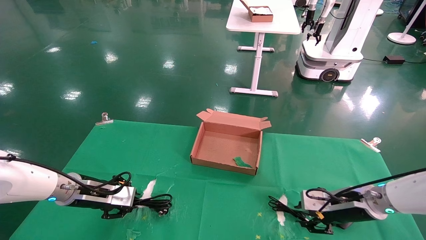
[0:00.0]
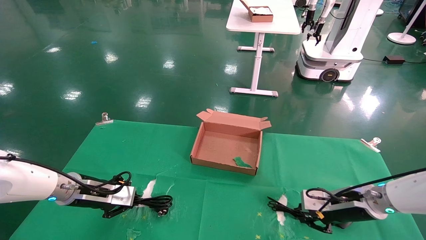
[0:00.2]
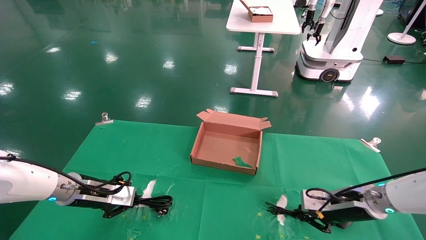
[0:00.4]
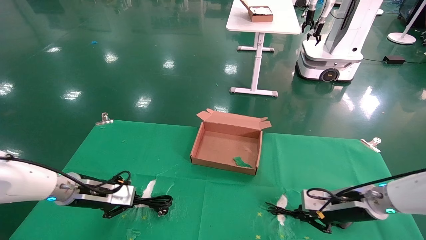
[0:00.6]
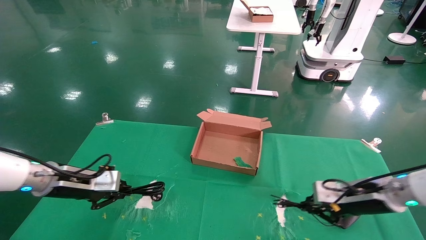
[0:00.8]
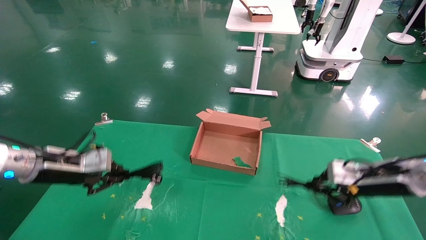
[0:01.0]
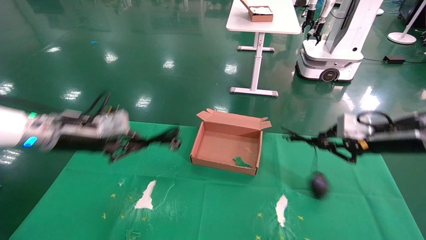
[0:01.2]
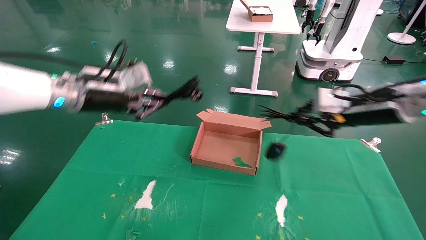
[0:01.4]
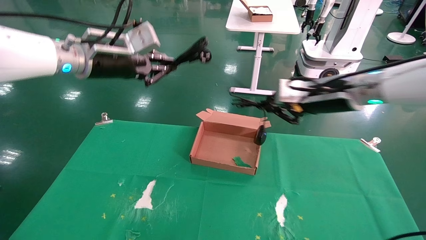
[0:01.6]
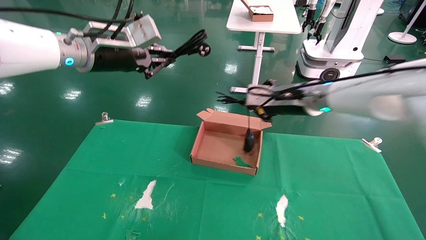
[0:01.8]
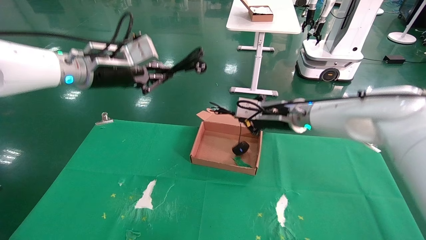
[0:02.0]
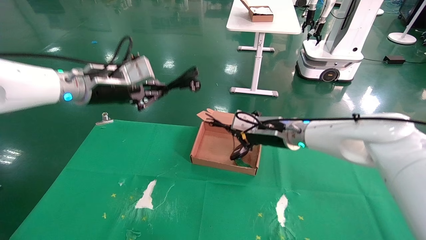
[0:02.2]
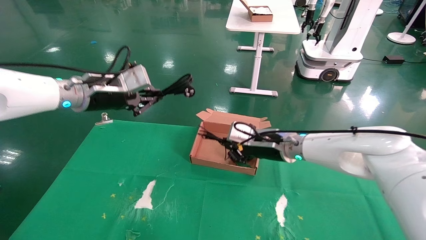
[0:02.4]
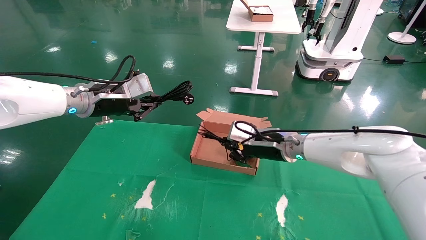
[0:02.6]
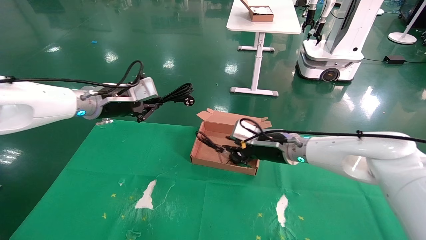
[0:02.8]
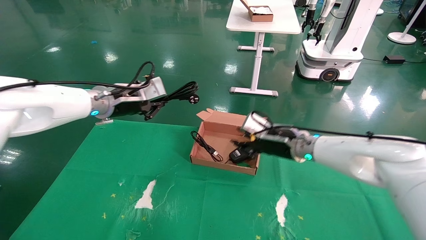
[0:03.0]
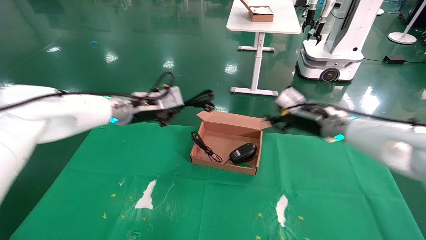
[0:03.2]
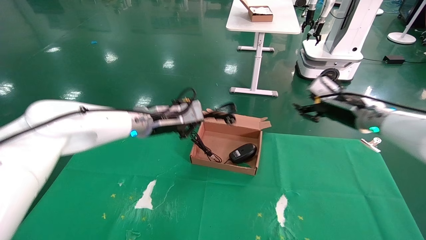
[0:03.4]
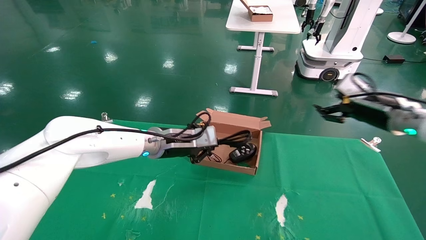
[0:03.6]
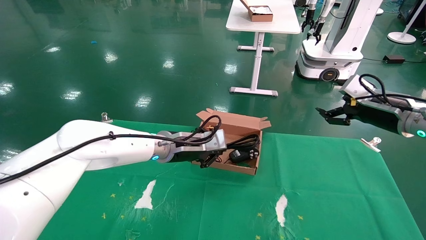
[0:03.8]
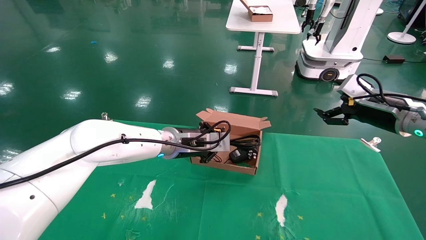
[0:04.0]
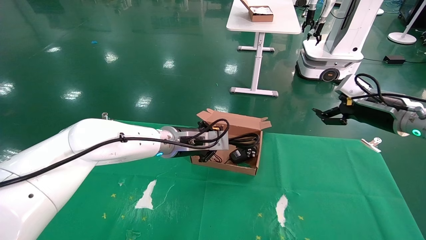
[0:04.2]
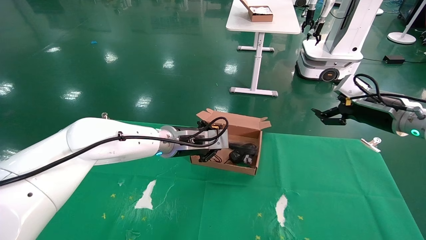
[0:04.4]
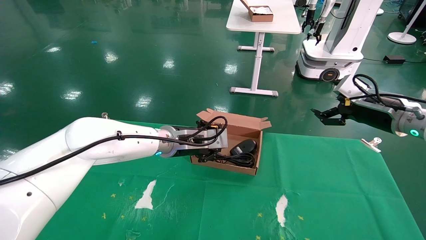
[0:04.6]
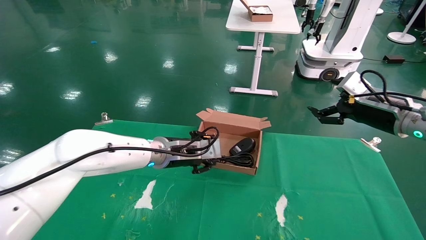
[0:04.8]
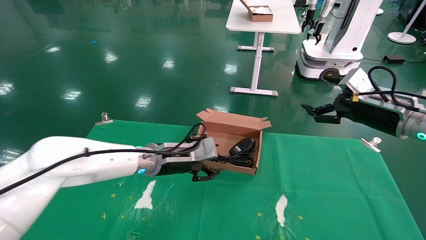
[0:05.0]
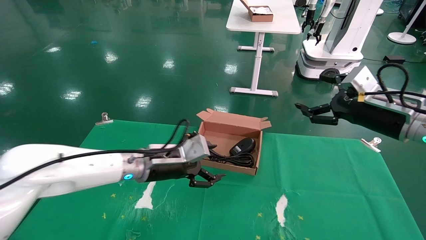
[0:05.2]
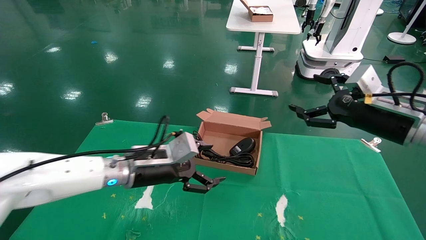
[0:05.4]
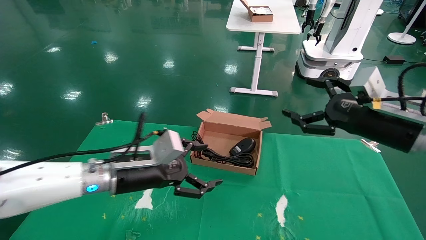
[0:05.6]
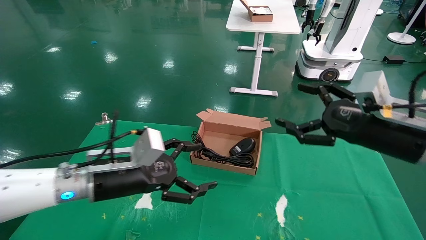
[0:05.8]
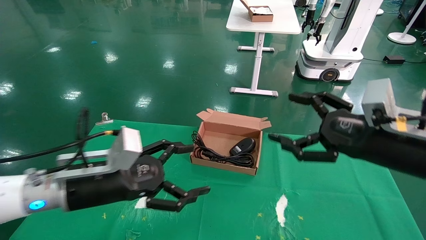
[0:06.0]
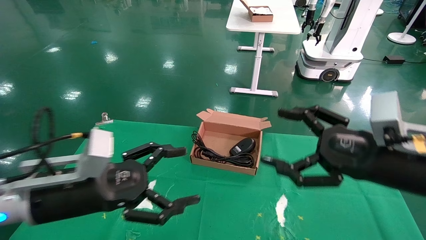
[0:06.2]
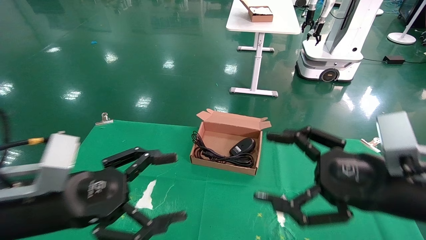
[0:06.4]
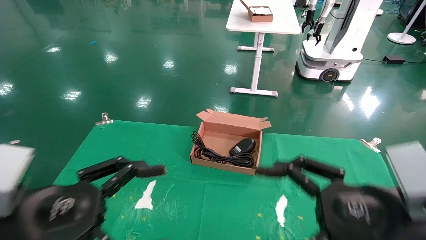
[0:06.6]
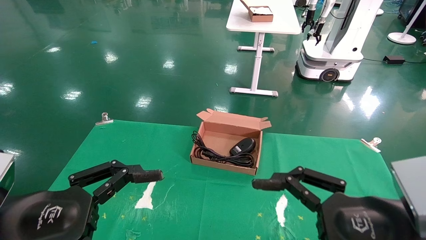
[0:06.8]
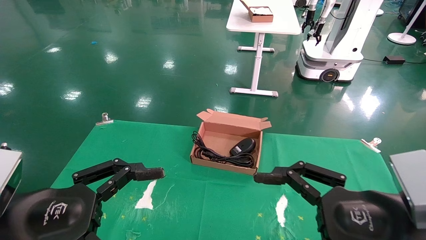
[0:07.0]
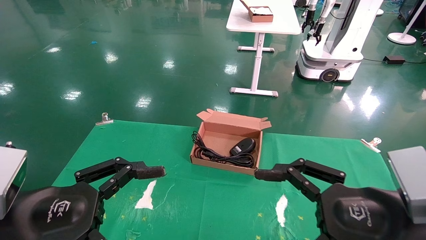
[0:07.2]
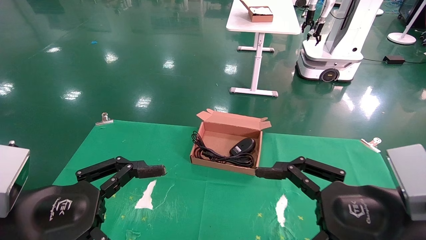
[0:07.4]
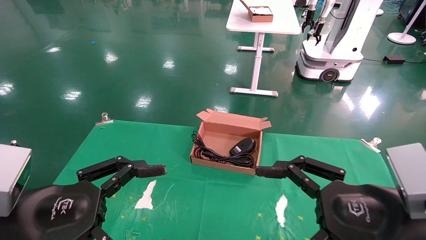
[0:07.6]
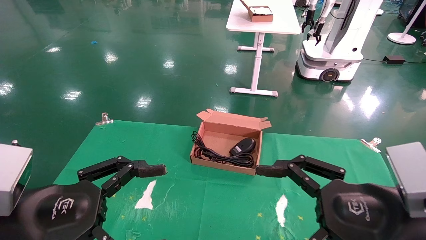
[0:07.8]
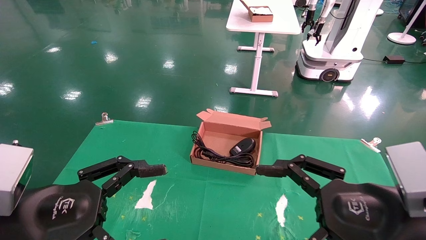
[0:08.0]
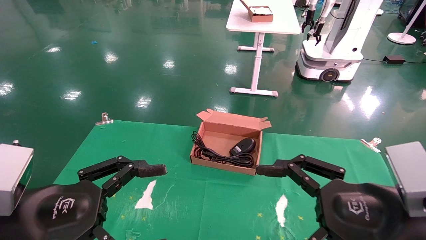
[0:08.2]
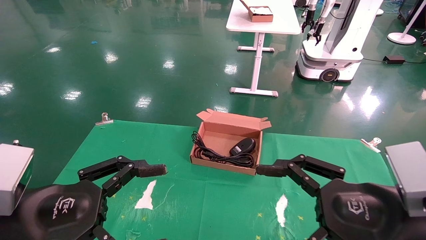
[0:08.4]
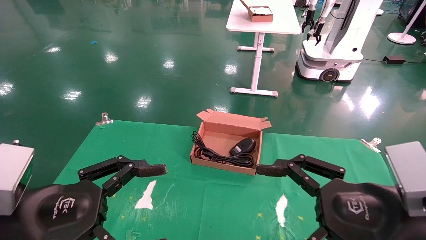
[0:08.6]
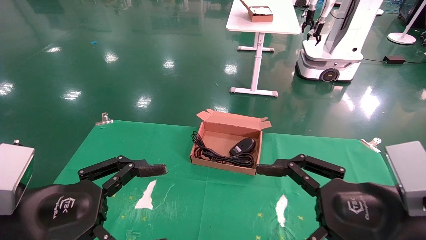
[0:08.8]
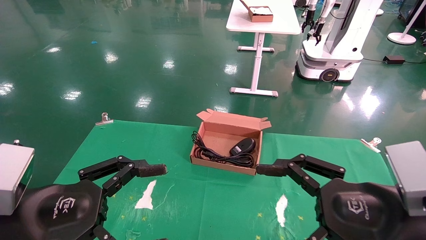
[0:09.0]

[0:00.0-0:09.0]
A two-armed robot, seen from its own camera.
Step, 0:00.4 to 0:05.0: Place the mouse and power cord into the box.
0:00.0 to 0:01.6: Both grippers travel together upward, approximately 25 cm. The right gripper closes its fingers.
0:01.6 to 0:03.0: The two grippers go roughly 10 cm downward and forward.
0:03.0 to 0:04.4: The left gripper moves to the right and downward, approximately 15 cm, while the right gripper goes some 15 cm to the right, and opens its fingers.
0:04.4 to 0:06.0: The two grippers go roughly 20 cm backward and to the left. The left gripper opens.
0:06.0 to 0:07.6: The grippers both shift backward by roughly 10 cm.
0:07.6 to 0:09.0: The two grippers keep their place.

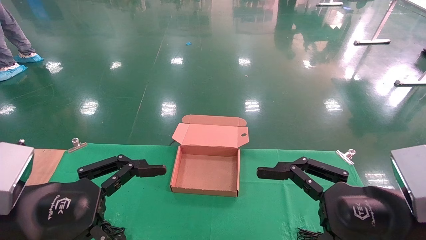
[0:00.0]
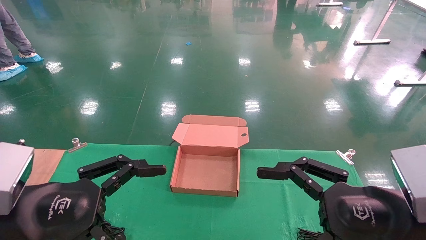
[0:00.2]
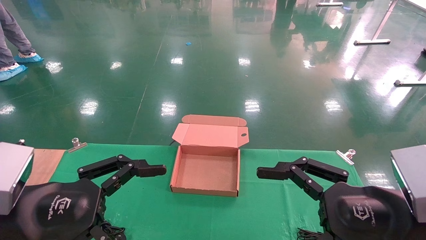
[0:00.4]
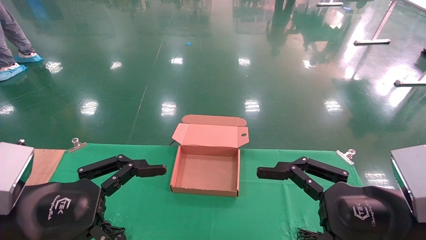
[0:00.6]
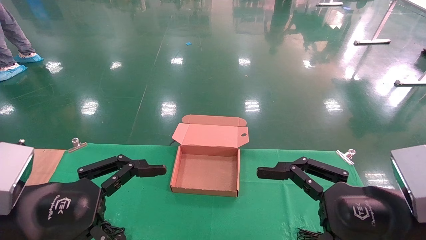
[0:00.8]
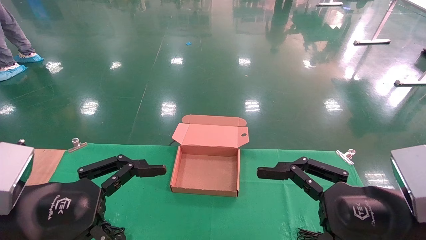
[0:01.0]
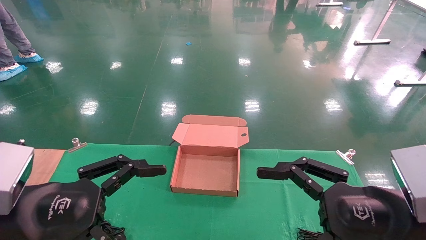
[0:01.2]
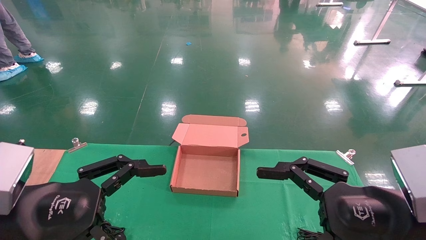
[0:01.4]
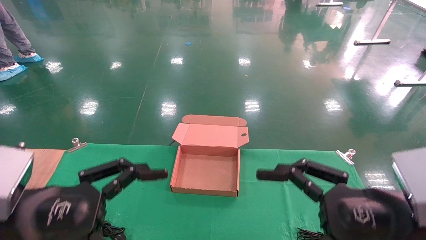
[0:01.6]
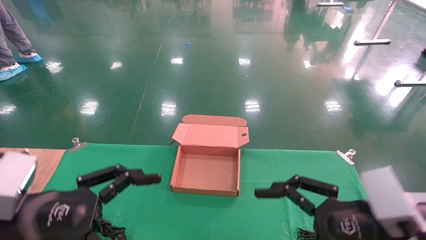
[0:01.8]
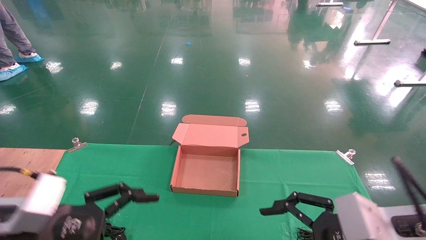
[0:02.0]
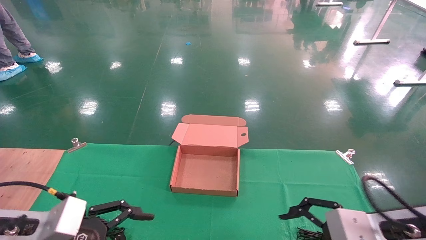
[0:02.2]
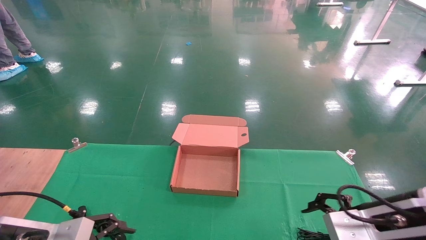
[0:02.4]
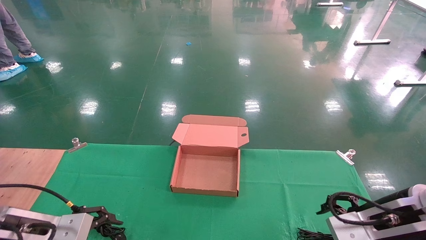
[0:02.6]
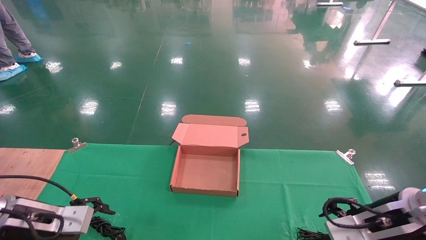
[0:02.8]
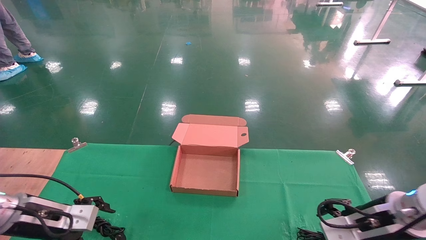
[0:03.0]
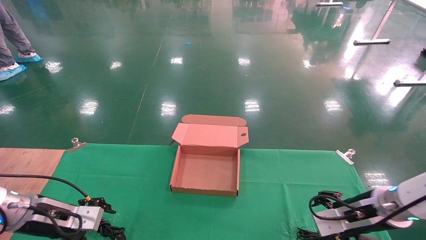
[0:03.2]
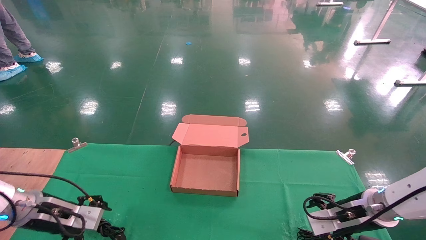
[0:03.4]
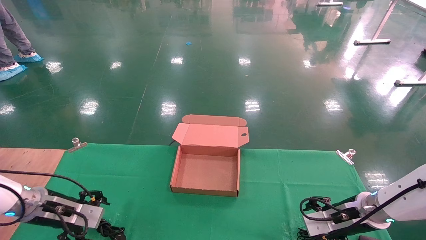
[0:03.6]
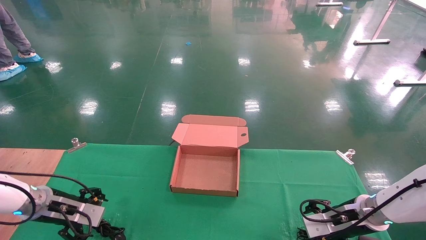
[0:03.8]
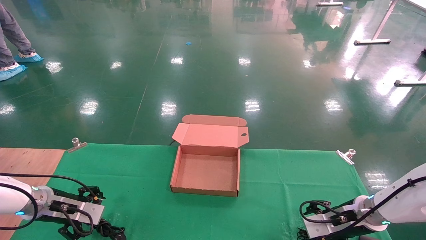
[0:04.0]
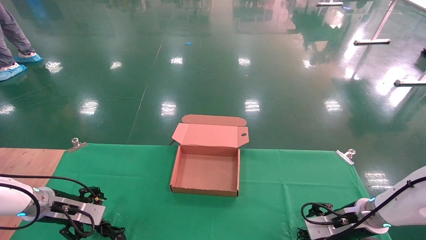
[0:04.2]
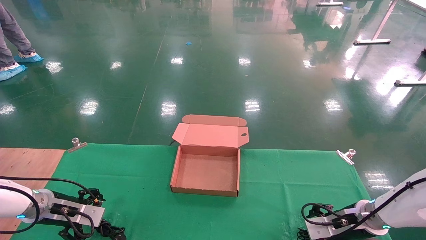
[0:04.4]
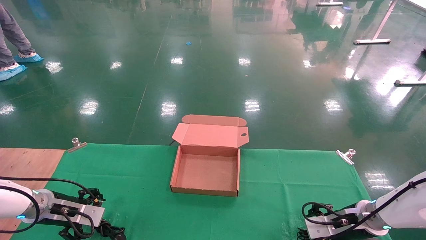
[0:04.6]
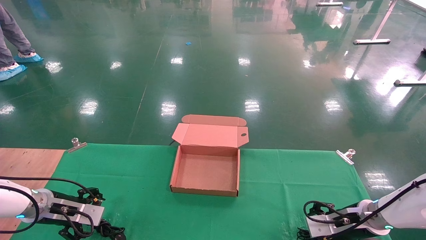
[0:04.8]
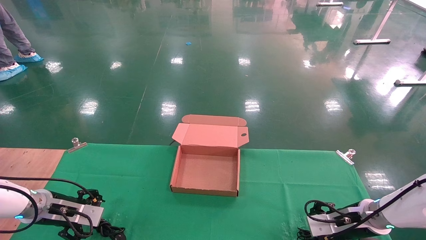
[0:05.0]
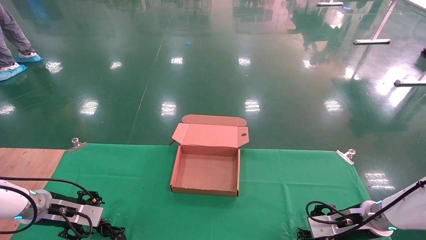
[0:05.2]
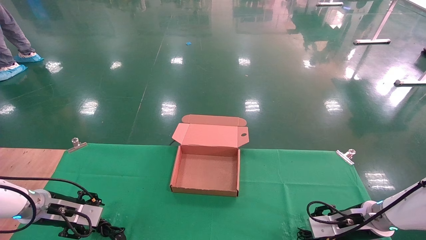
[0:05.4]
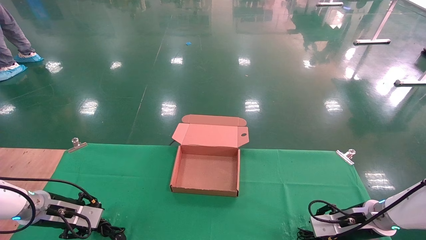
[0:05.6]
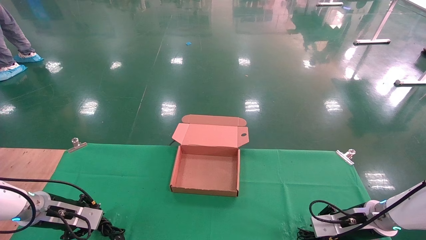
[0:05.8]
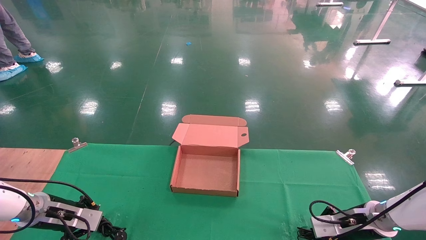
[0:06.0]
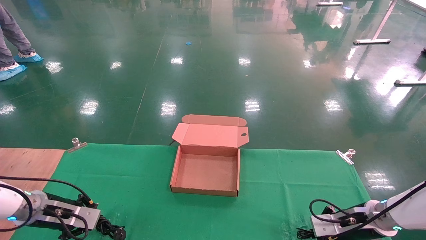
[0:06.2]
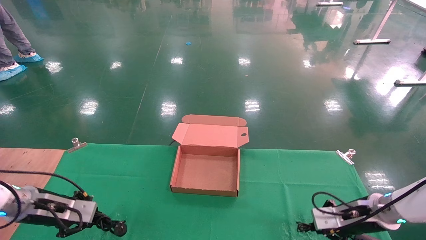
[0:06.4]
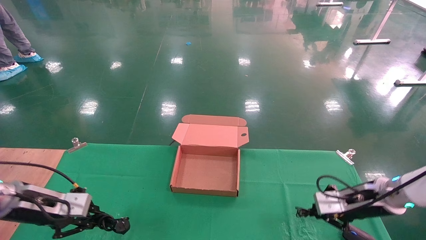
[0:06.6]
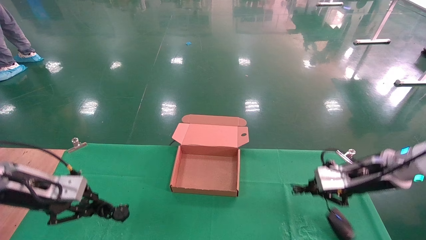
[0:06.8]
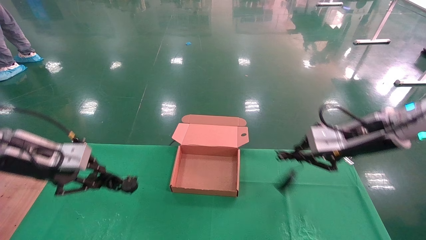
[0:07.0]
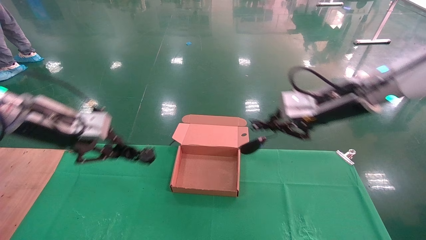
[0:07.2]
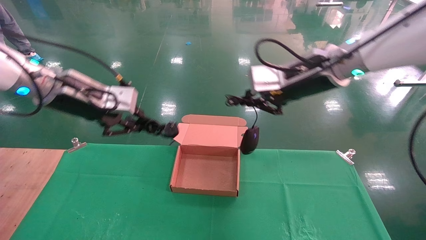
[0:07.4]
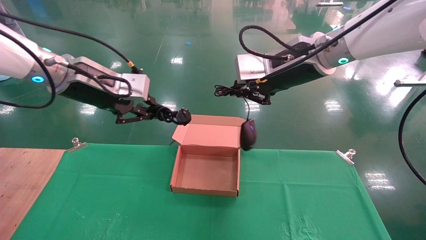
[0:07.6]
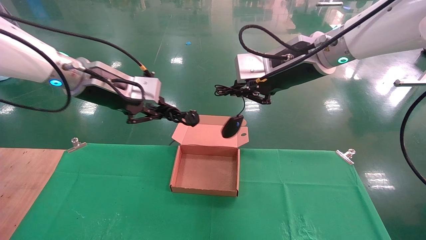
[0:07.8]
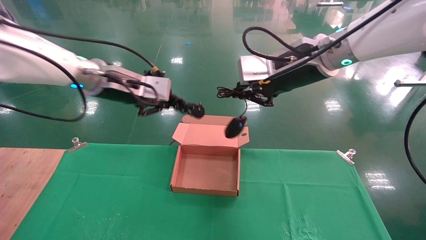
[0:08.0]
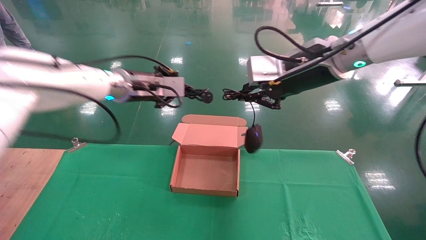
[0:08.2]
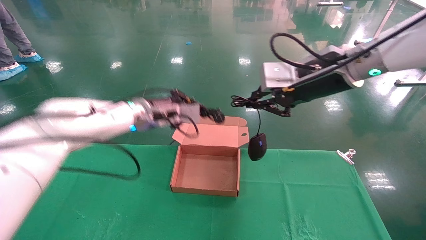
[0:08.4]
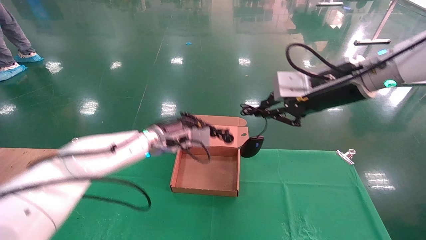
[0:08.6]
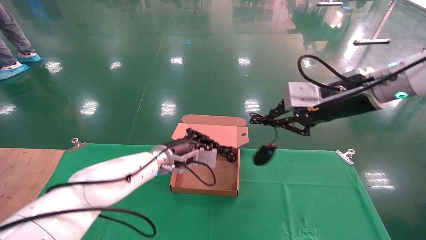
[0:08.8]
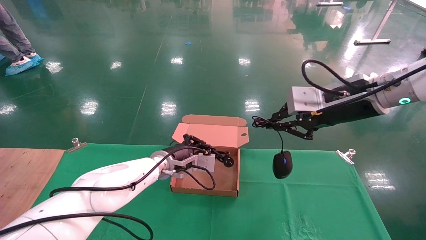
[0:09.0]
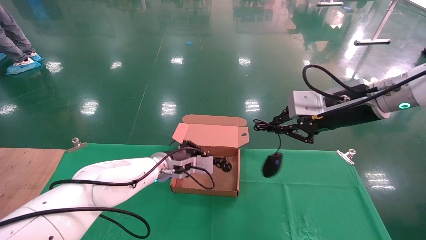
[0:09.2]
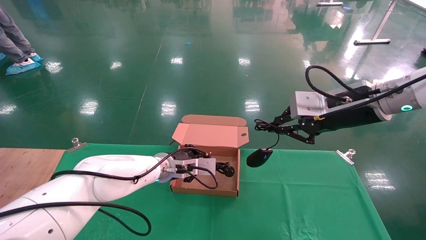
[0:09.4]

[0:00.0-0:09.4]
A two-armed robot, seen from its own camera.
Step, 0:02.4 to 0:05.6: Grab and lift both the mouse and power cord from the accessory packaging area at the same time.
0:00.0 to 0:01.6: Both grippers stay put.
0:01.6 to 0:03.2: The right gripper is displaced forward and downward by approximately 20 cm, while the left gripper is displaced forward, downward and to the left by approximately 20 cm.
0:03.2 to 0:04.8: The right gripper heads downward and forward, covering about 10 cm. Meanwhile the left gripper heads forward, covering roughly 5 cm.
0:04.8 to 0:06.2: The left gripper closes; the right gripper closes.
0:06.2 to 0:07.8: The right gripper moves upward and to the left, roughly 40 cm. The left gripper moves upward and to the right, roughly 35 cm.
0:07.8 to 0:09.4: The left gripper moves downward and to the right, about 25 cm, while the right gripper shifts some 10 cm to the right and downward.
